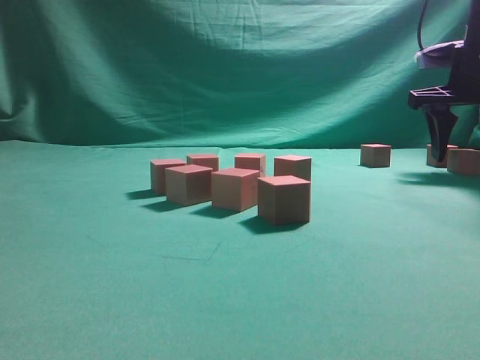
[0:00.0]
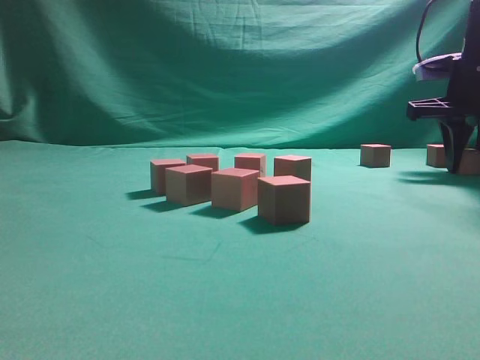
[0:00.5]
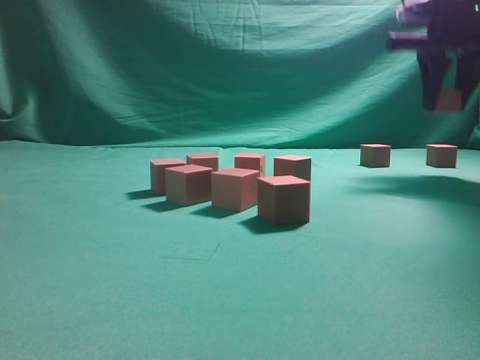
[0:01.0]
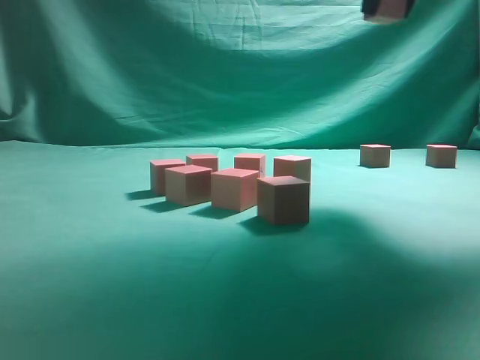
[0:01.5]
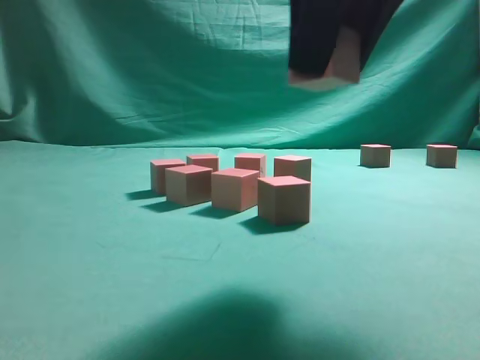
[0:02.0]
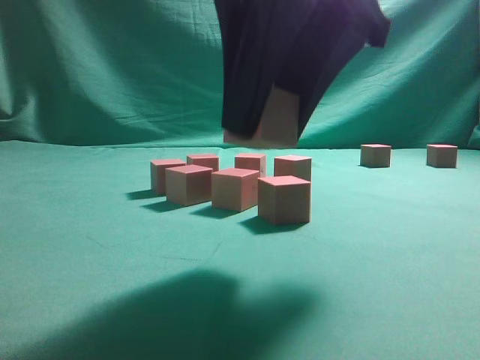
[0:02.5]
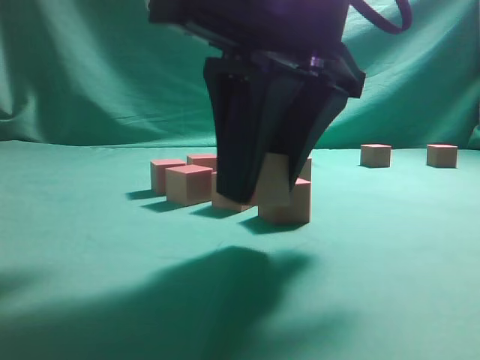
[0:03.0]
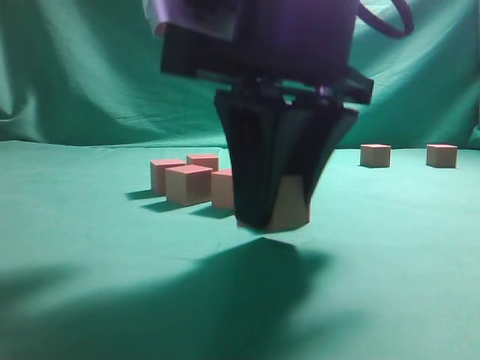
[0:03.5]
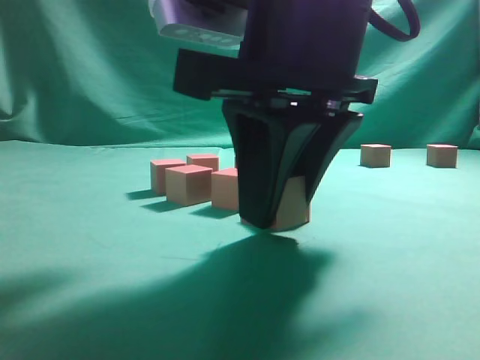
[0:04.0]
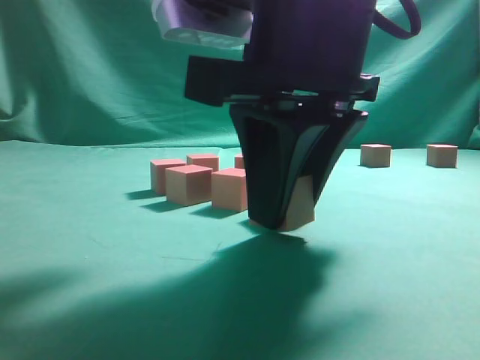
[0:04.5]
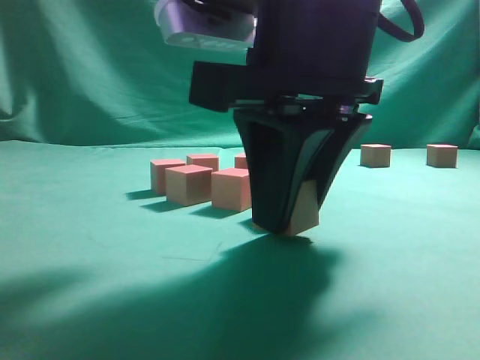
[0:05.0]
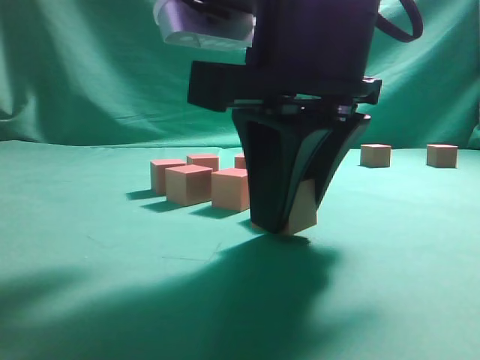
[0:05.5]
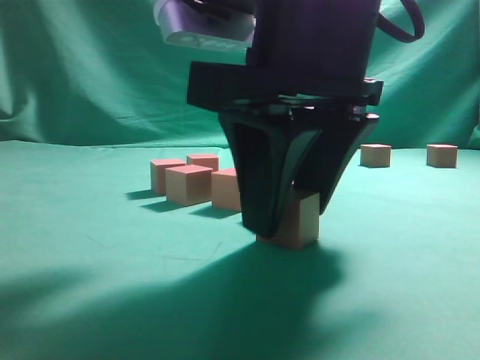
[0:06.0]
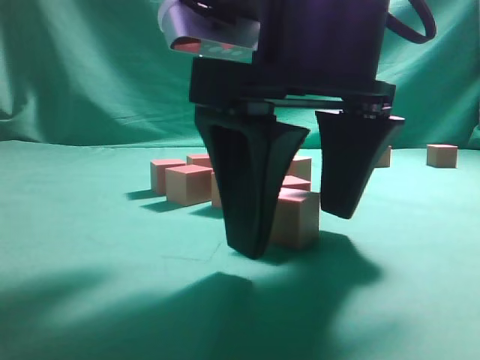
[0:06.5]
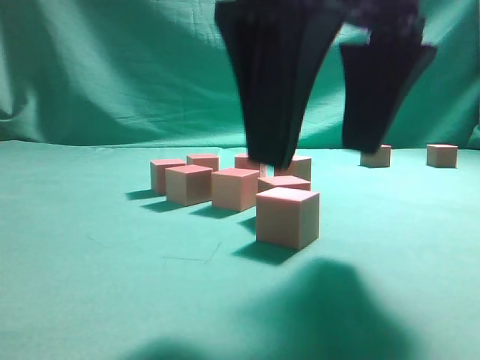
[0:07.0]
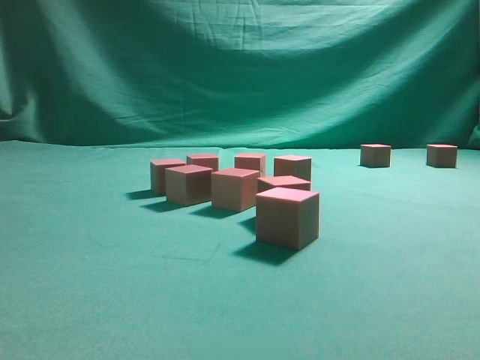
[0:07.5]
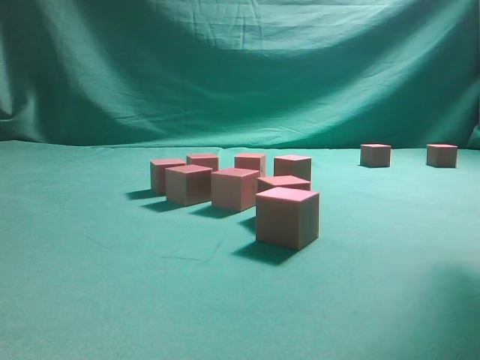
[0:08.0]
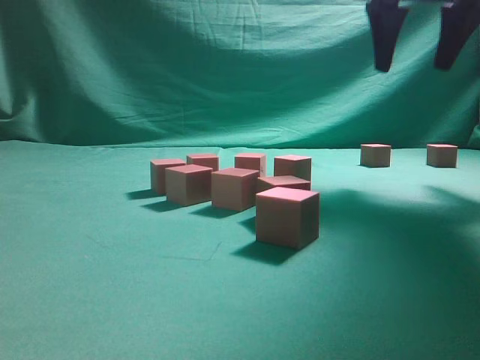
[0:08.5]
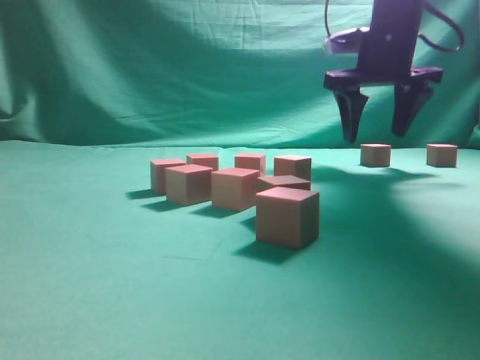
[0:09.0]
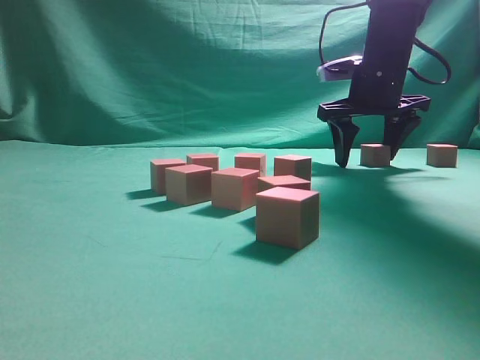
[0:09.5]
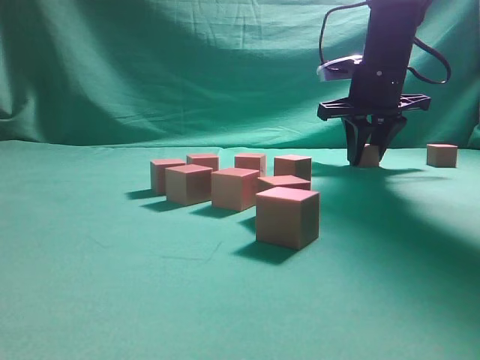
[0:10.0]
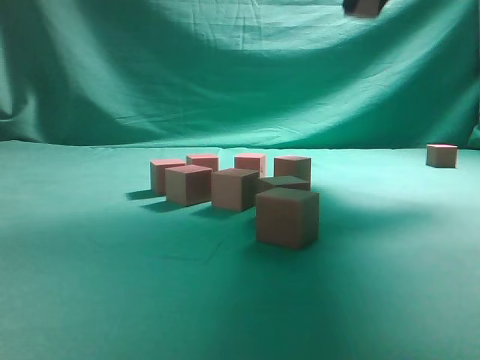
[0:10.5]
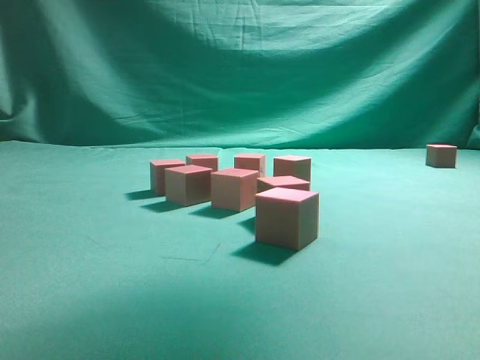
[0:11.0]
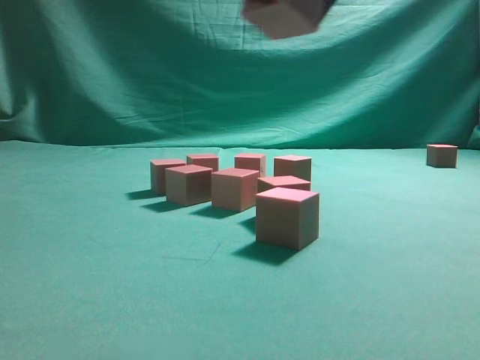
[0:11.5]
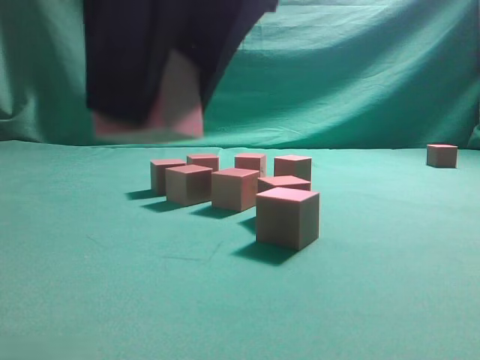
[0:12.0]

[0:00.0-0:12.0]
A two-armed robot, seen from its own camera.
Task of the whole recording: pick up the multiple cubes in two columns one by one and place them in another position on the table.
Step, 0:01.0 to 0:07.0: Place the block at the correct position to assemble the letter S.
Step, 0:07.5 to 0:10.0: Pick up the block on the table.
0:00.0 to 0:02.0: The right gripper travels backward and to the left by about 30 cm, and closes.
0:02.0 to 0:04.0: The right gripper is displaced downward by some 10 cm.
0:04.0 to 0:06.0: Both grippers stay put.
0:06.0 to 0:08.0: The right gripper shifts some 25 cm upward and to the right.
0:08.0 to 0:10.0: The right gripper is displaced forward and downward by approximately 30 cm, and closes.
0:10.0 to 0:12.0: The right gripper is displaced backward and to the left by approximately 40 cm.

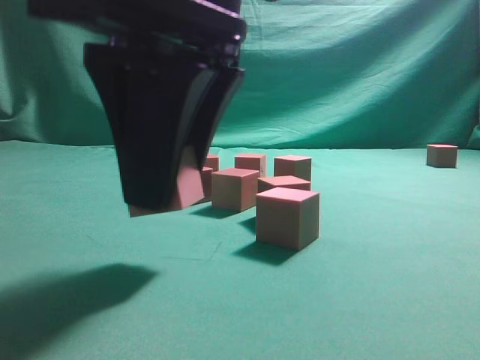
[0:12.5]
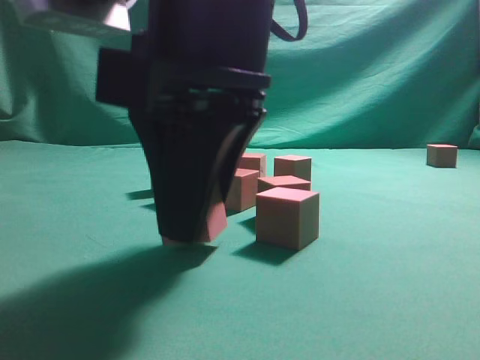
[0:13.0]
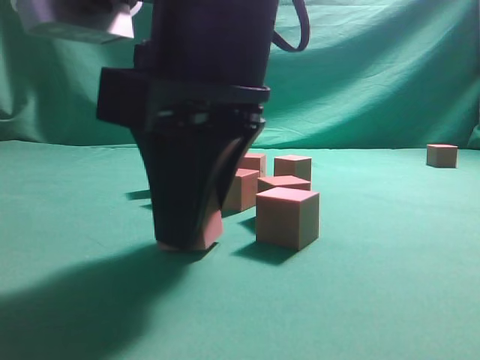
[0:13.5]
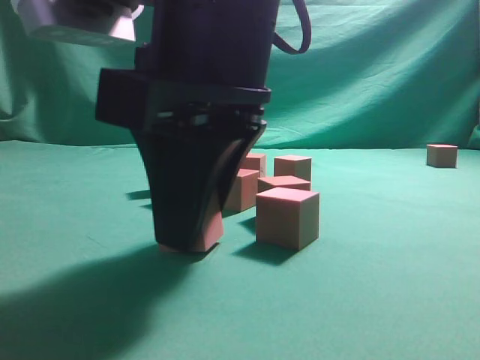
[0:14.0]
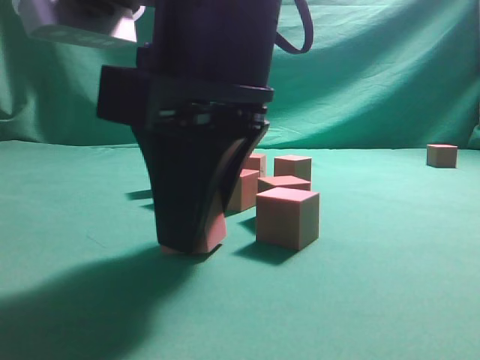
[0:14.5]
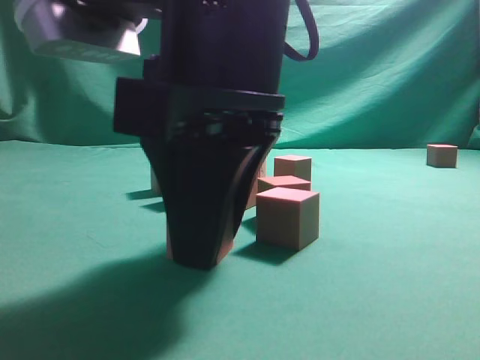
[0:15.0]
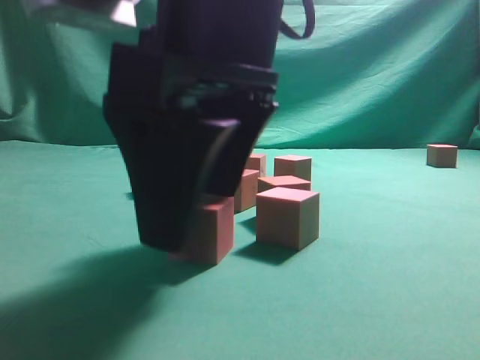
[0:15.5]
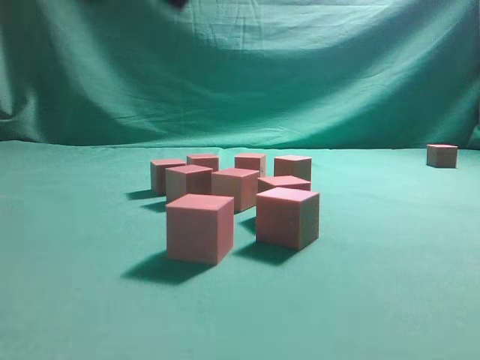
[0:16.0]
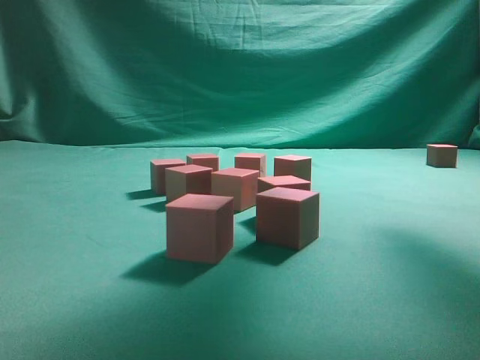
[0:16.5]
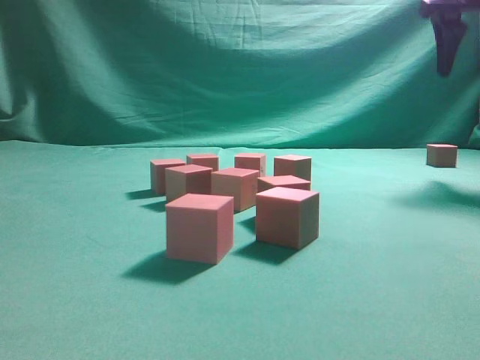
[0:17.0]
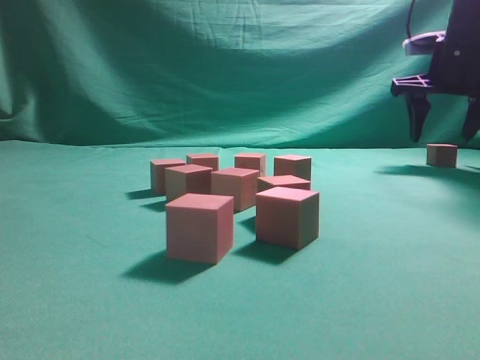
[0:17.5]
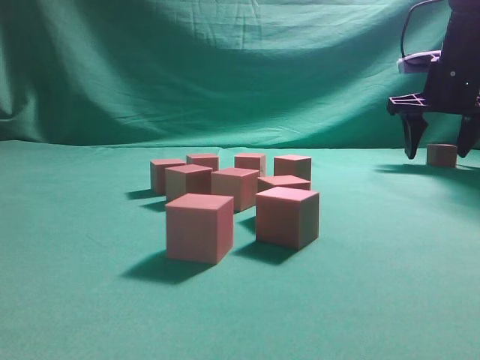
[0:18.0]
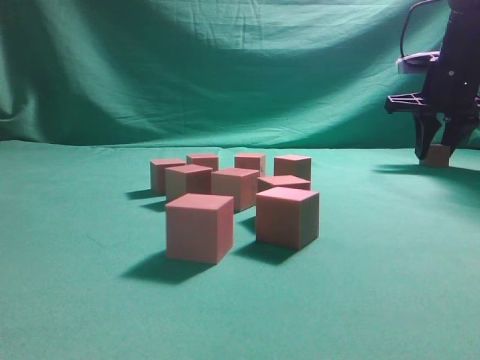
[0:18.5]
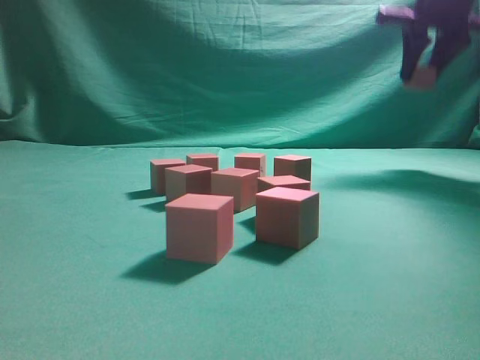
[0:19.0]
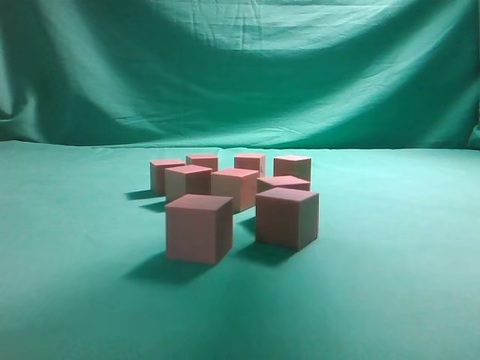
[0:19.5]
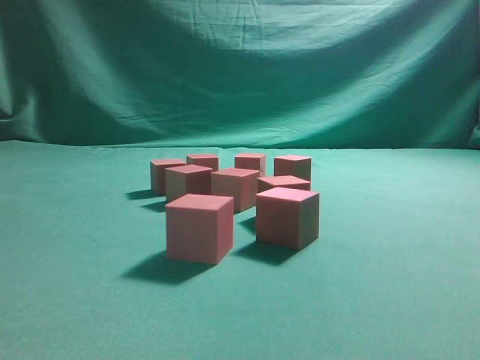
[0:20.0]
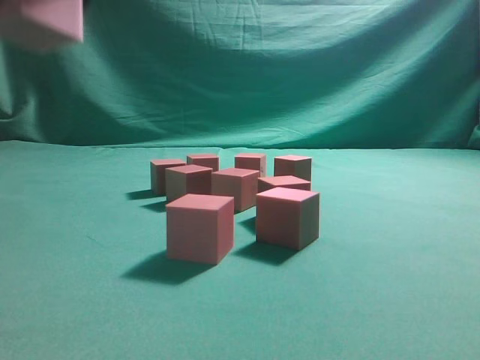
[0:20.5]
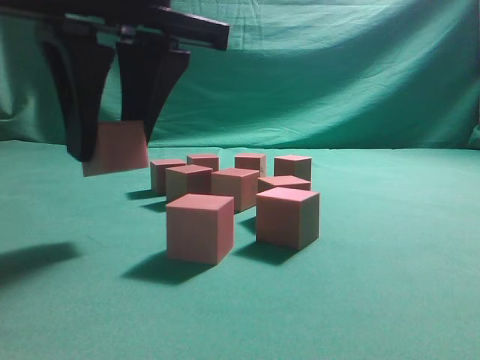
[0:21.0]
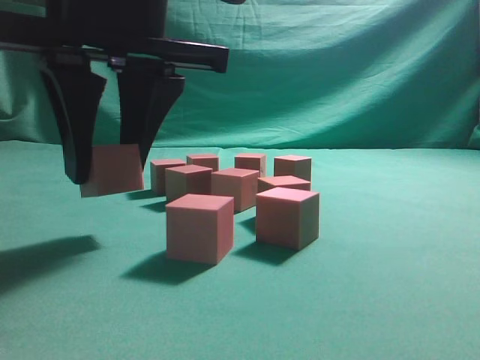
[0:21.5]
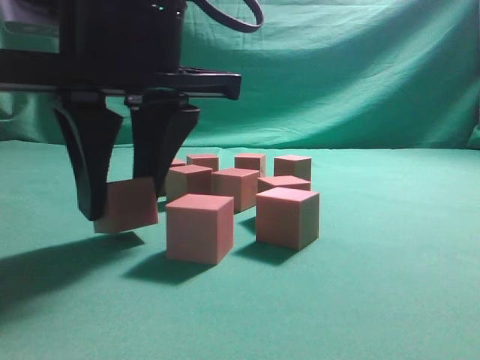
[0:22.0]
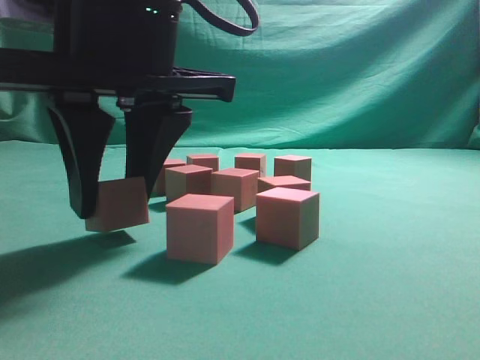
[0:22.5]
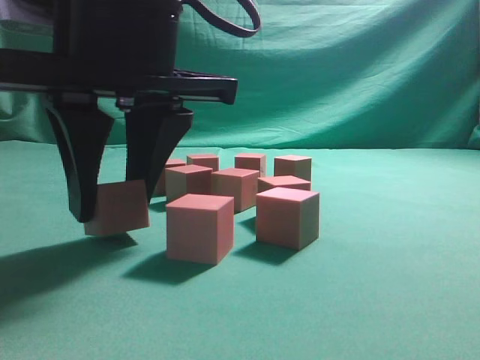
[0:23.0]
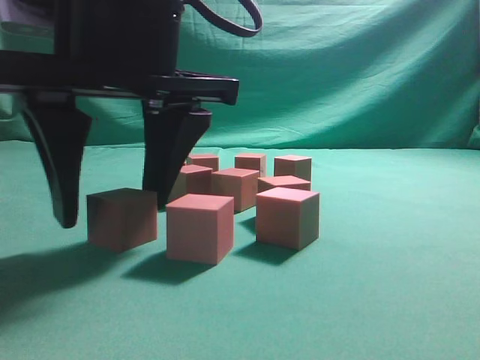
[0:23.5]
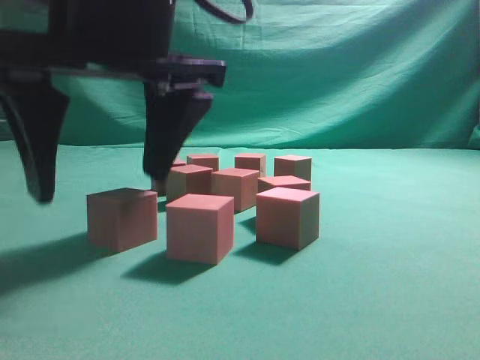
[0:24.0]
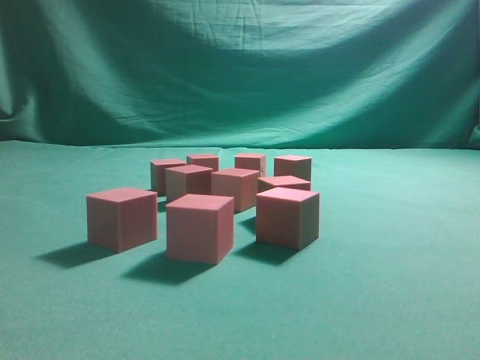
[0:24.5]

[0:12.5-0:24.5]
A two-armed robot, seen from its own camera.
Task of the whole recording: pick up the multiple cubes in two columns one by one and place them in another position on the table.
Step, 0:12.5 to 0:15.5: Place the block at the correct position to assemble the letter S.
Step, 0:16.0 to 0:18.5: Pick up the block on the table.
Step, 0:19.0 to 0:24.0: Place the block at the correct position to assemble the letter S.
0:12.5 to 0:14.5: The grippers move only a little.
0:14.5 to 0:16.5: The right gripper moves upward, to the right and forward, about 25 cm, and opens its fingers.
0:16.5 to 0:18.5: The right gripper travels forward, downward and to the right by approximately 30 cm, and closes.
0:18.5 to 0:20.5: The right gripper goes about 50 cm to the left and backward.
0:20.5 to 0:22.5: The right gripper is displaced downward by approximately 10 cm.
0:22.5 to 0:24.5: The right gripper goes about 20 cm upward, and opens and closes again.
